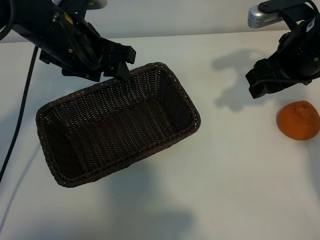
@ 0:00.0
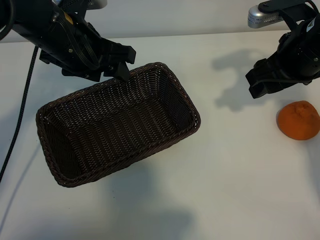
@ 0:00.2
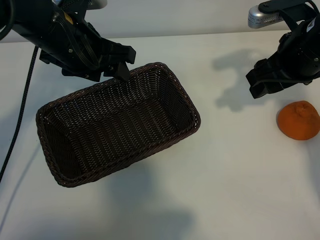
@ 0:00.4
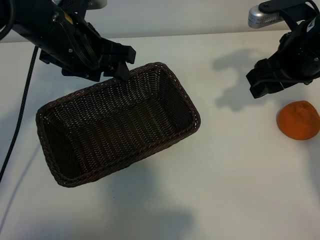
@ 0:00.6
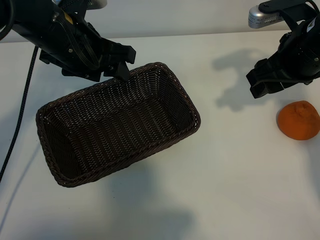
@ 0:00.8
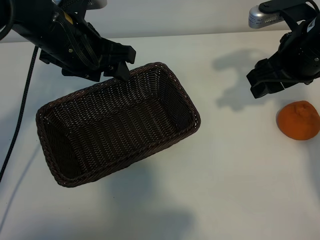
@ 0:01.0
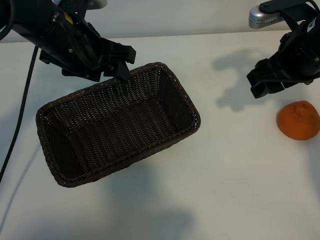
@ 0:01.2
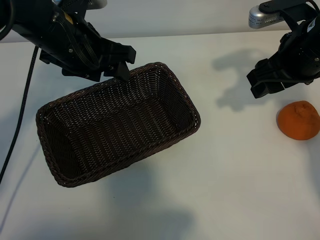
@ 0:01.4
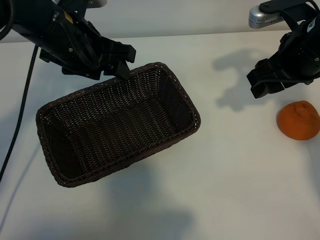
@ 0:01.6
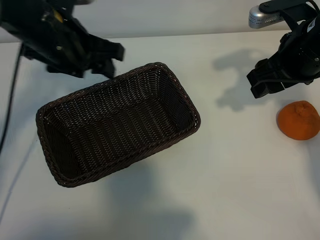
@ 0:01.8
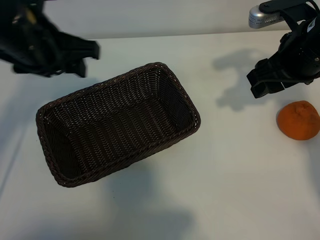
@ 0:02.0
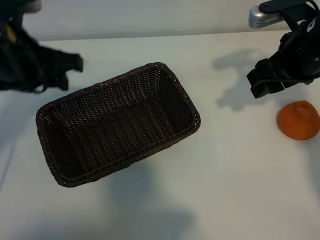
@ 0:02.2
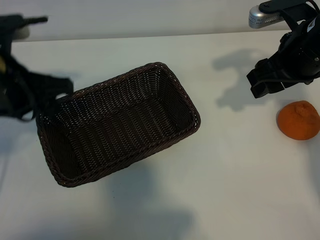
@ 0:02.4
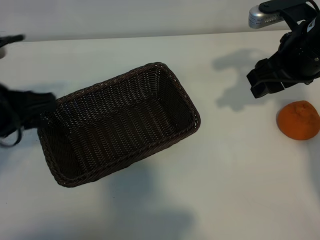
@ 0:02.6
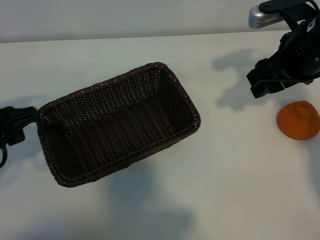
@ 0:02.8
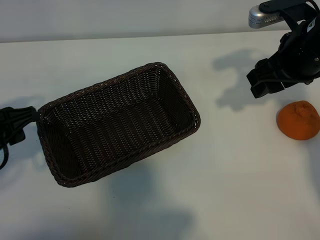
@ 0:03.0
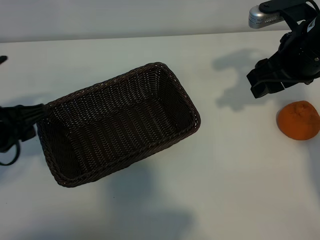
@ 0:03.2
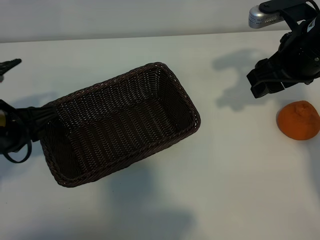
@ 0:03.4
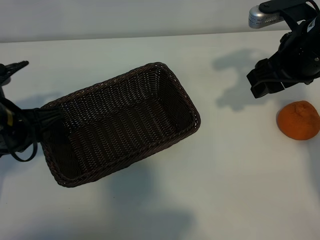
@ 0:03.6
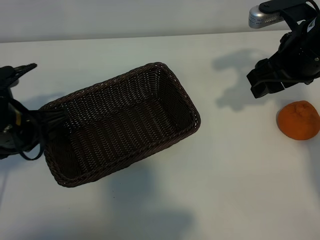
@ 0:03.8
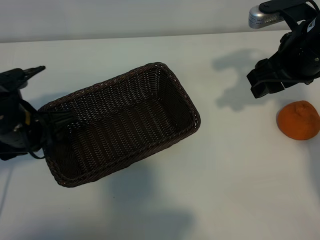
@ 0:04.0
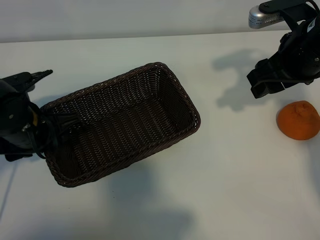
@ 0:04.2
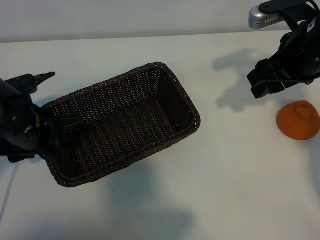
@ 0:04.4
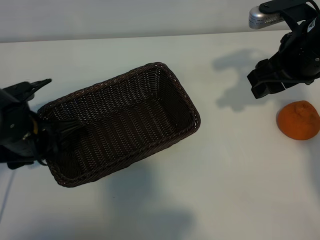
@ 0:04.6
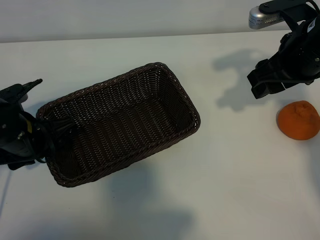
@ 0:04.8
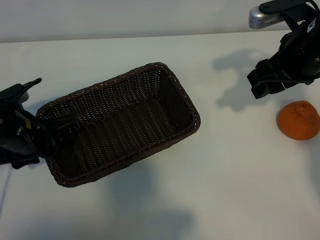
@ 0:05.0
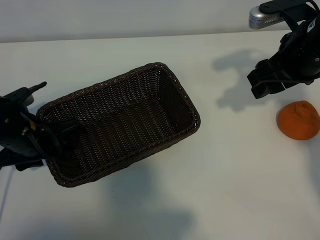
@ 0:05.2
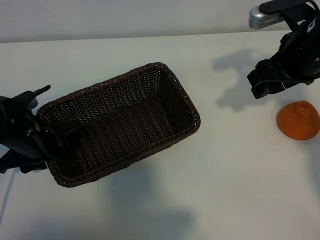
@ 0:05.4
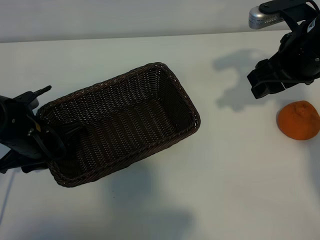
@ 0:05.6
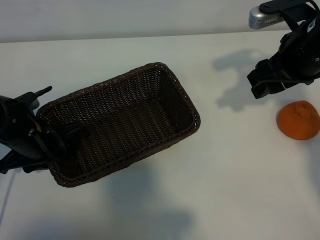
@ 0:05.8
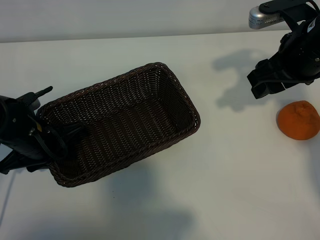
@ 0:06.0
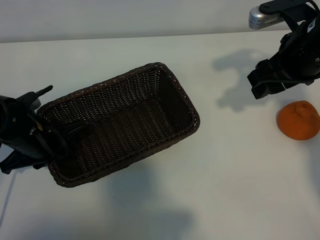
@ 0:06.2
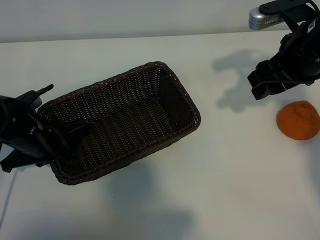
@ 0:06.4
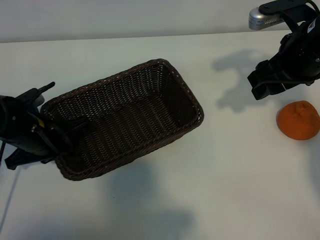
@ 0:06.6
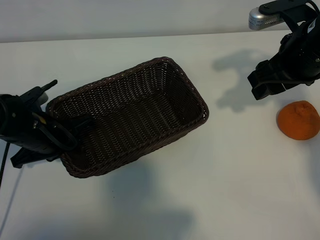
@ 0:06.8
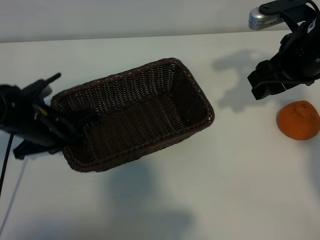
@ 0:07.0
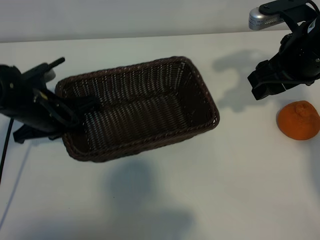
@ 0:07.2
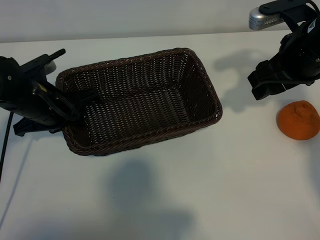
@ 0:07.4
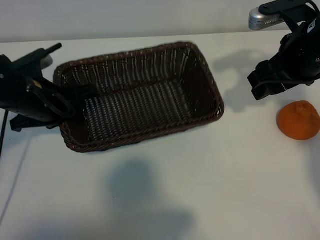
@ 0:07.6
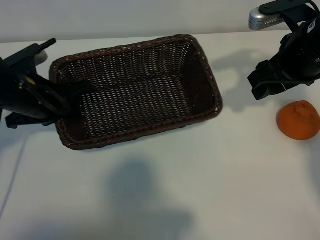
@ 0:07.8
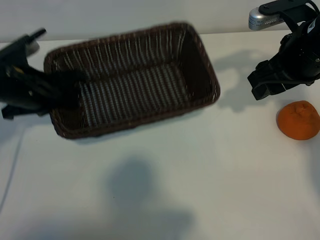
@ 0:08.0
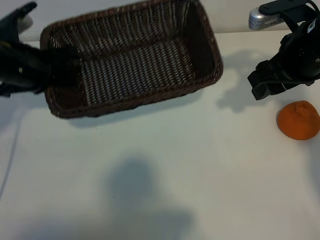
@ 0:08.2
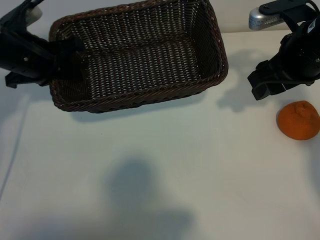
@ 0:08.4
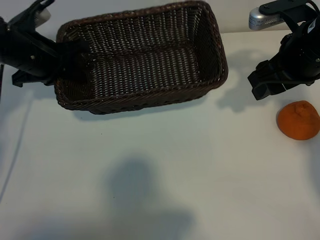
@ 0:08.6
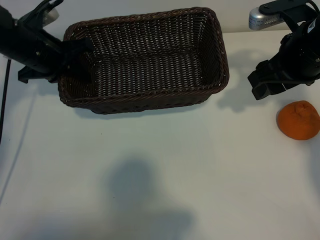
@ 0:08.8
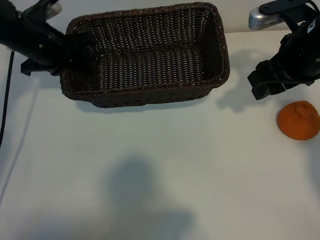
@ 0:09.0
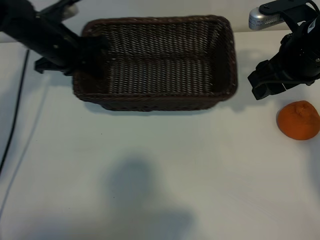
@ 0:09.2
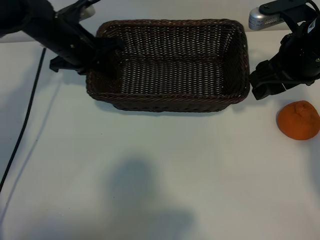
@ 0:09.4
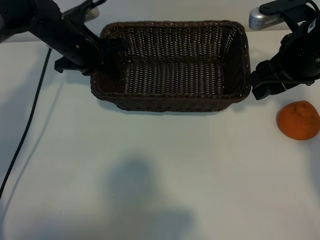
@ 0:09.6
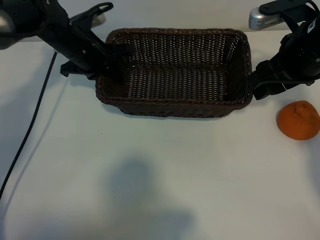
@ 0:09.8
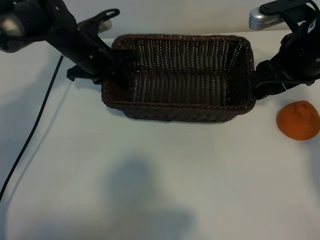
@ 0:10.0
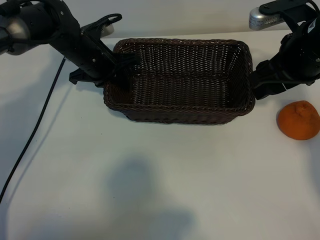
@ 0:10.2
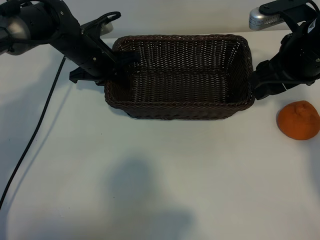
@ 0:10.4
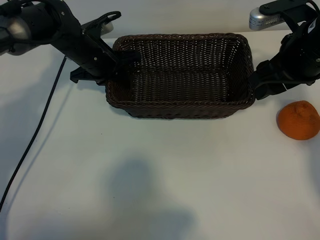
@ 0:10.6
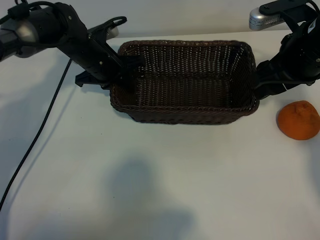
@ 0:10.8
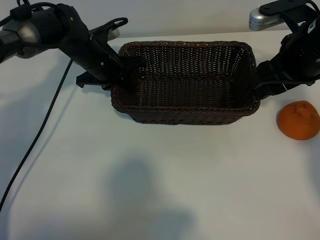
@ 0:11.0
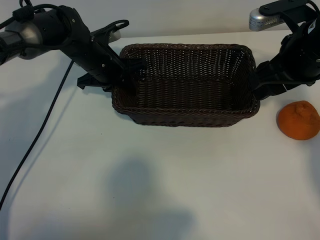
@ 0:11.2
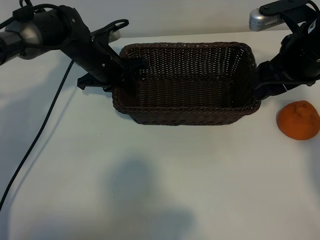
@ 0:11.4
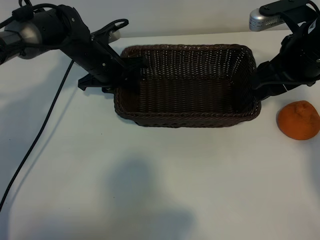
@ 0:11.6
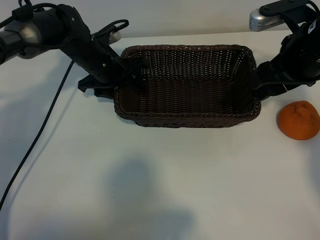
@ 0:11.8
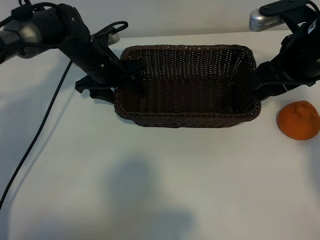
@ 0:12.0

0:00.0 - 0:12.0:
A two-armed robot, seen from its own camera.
Task of the whole recording: pick up the orange and put it into the basket.
Step, 0:01.4 - 0:06.6: Grasp the basket with left gripper.
Step, 0:06.8 - 0:11.6: Place the basket in the center of view with left gripper.

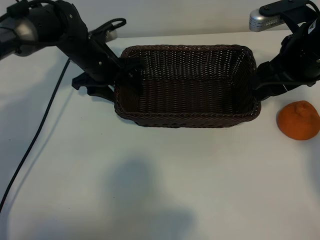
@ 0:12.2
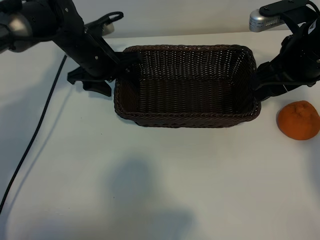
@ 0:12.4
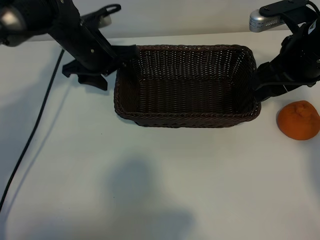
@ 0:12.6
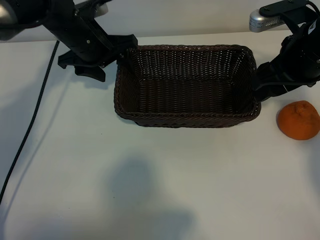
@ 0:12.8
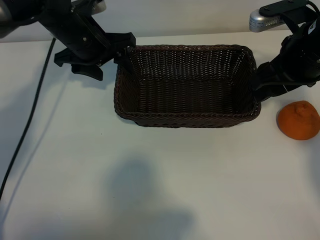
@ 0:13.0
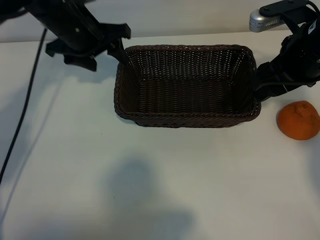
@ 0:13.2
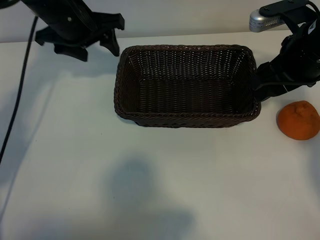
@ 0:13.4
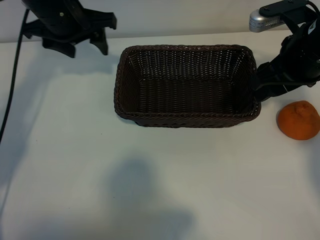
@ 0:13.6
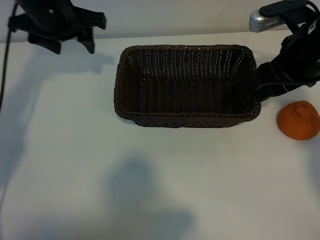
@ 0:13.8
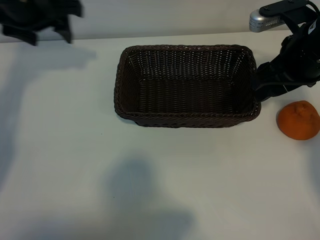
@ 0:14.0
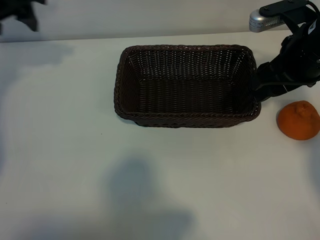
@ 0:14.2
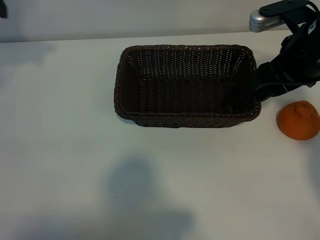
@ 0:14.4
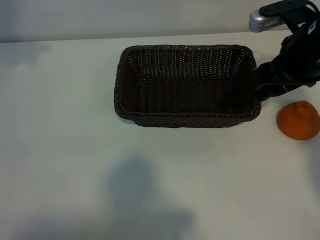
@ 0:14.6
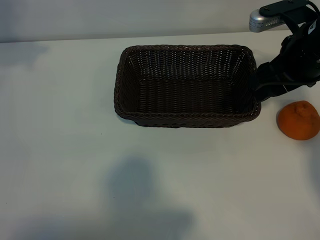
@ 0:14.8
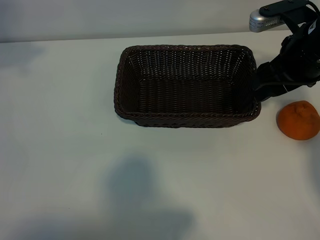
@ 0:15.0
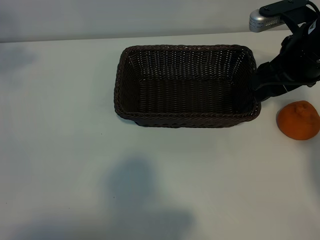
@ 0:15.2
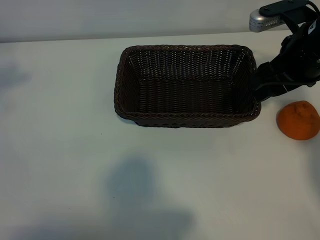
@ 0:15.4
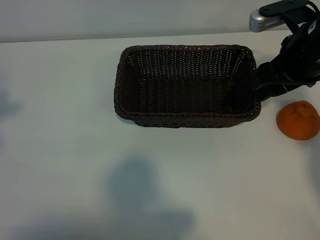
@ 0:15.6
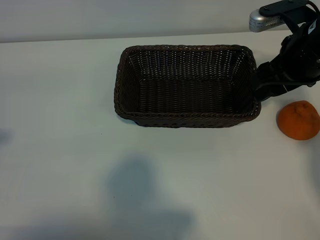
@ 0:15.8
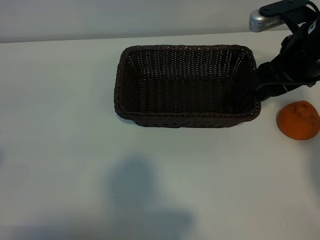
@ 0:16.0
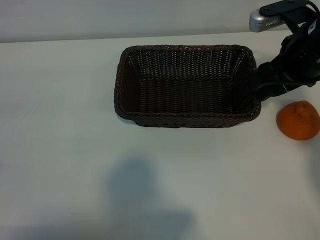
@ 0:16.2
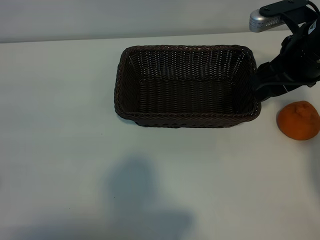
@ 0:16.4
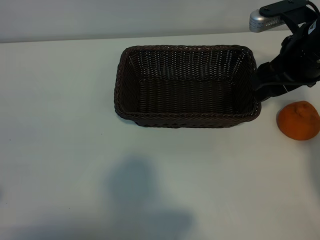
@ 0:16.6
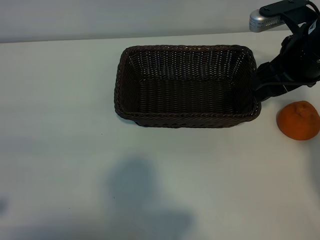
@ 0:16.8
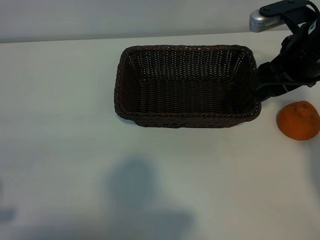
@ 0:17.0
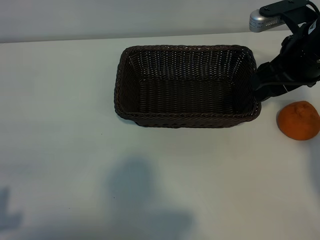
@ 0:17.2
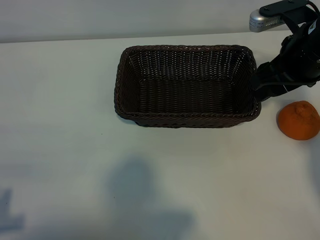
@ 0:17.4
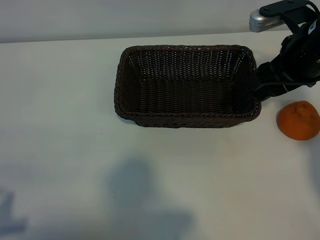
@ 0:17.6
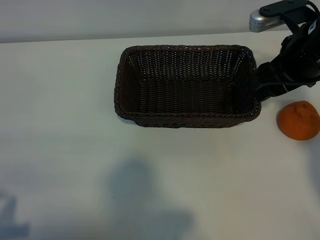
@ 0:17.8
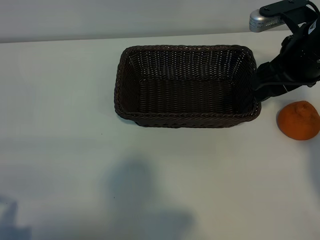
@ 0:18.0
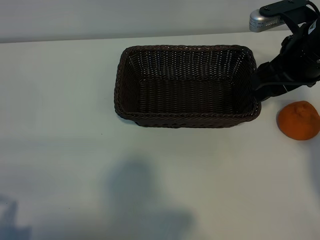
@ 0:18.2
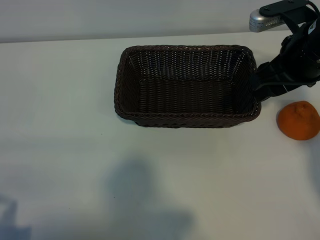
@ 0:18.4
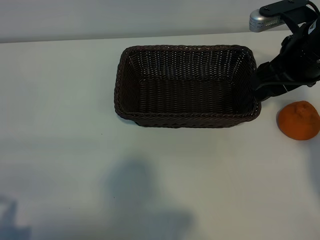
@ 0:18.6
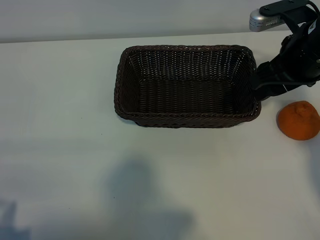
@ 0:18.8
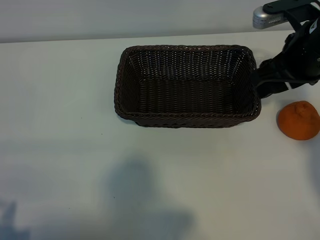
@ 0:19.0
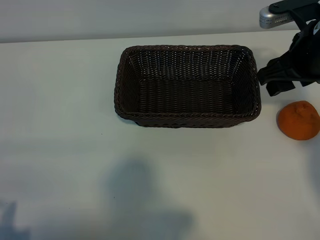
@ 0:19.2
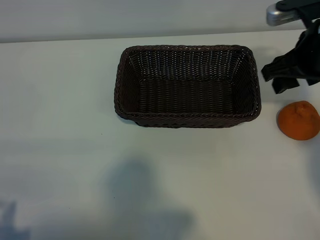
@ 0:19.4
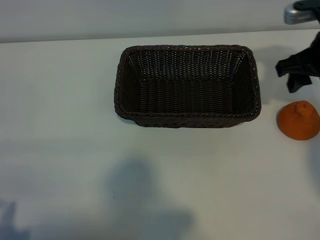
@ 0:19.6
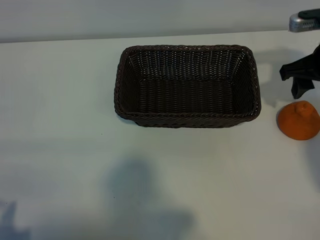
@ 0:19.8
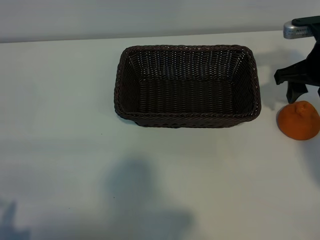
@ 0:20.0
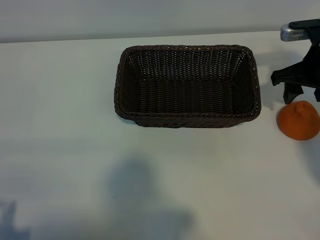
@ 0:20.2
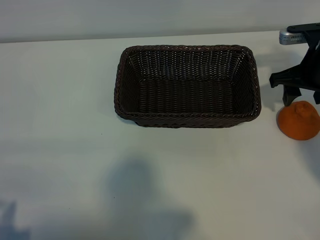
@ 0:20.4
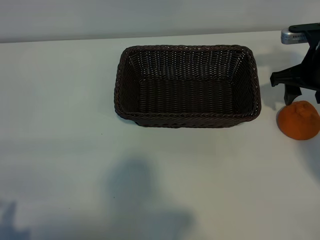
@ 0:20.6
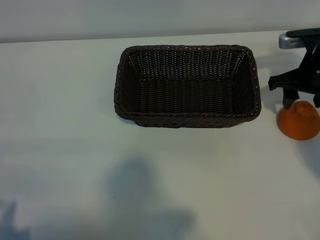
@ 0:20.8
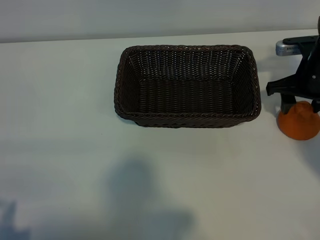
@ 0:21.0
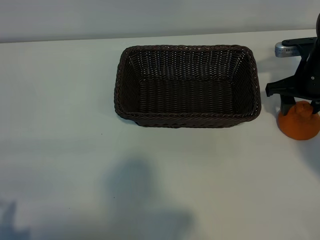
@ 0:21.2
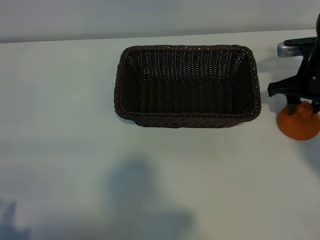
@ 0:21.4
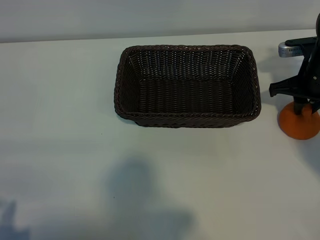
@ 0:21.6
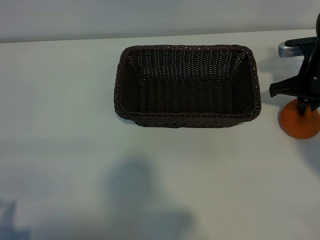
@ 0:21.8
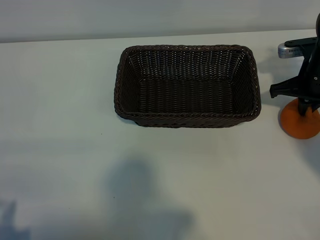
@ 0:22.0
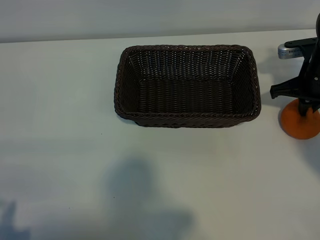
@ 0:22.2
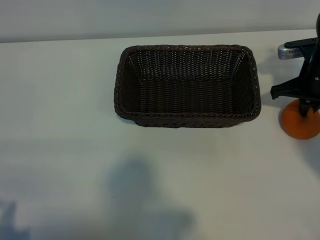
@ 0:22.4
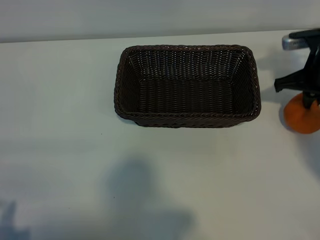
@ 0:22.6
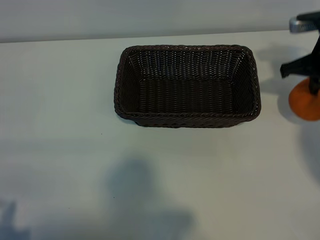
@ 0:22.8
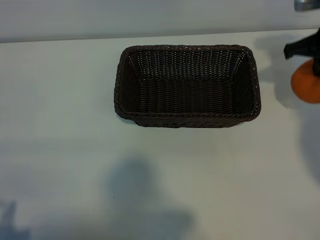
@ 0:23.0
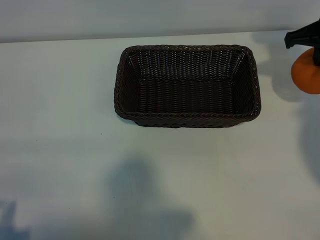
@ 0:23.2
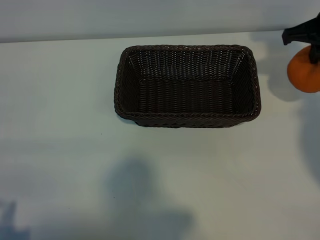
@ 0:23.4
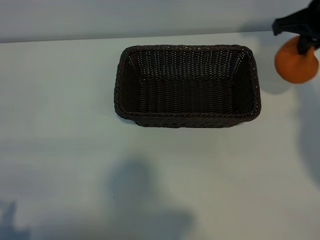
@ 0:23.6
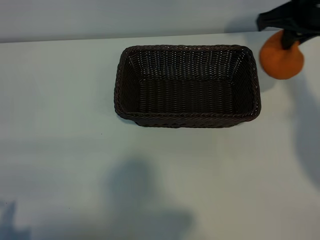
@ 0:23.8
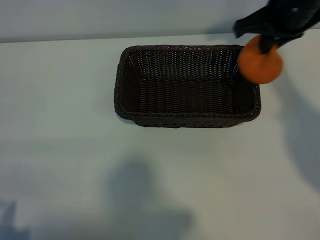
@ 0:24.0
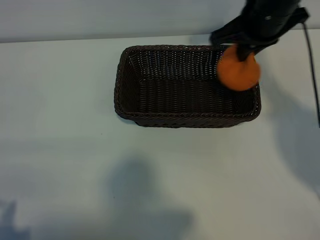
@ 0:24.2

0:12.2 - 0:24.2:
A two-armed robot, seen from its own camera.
Task of the whole recording: pick up the orange and put it into the basket.
Step, 0:12.2 - 0:22.2: Grasp the orange with right gripper.
